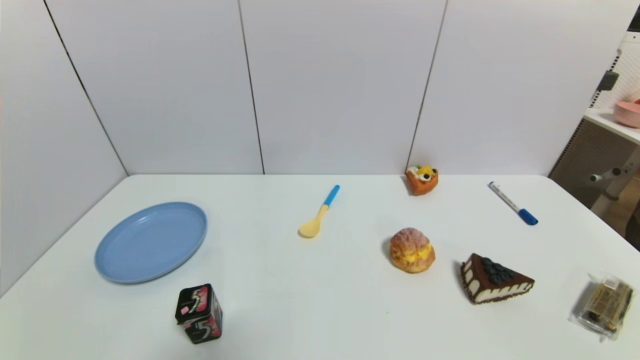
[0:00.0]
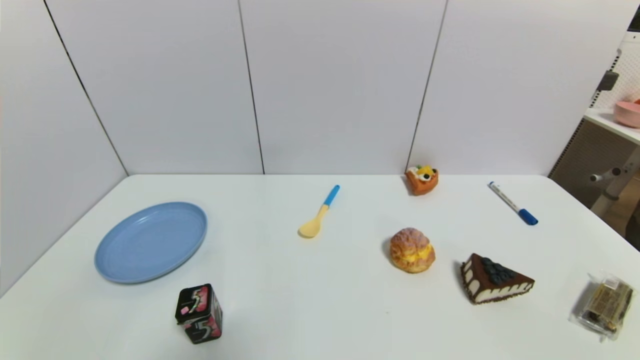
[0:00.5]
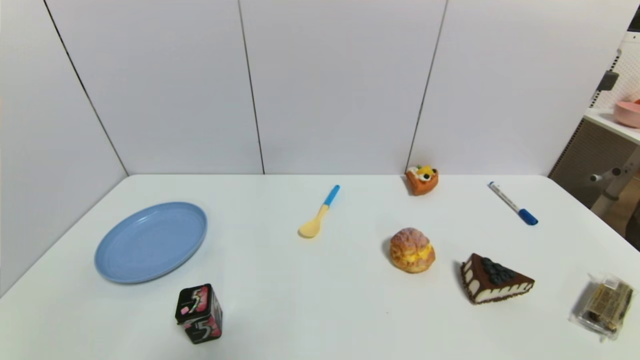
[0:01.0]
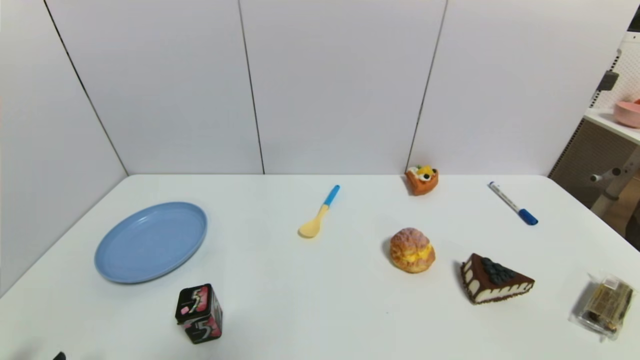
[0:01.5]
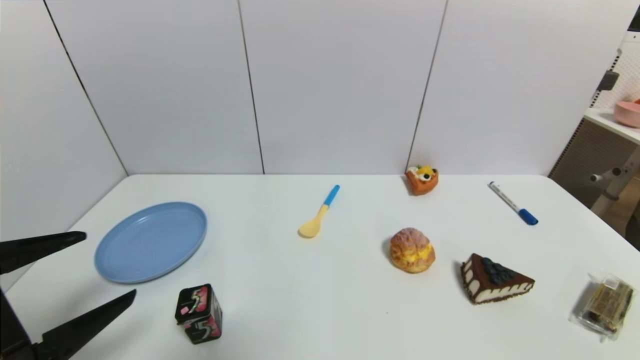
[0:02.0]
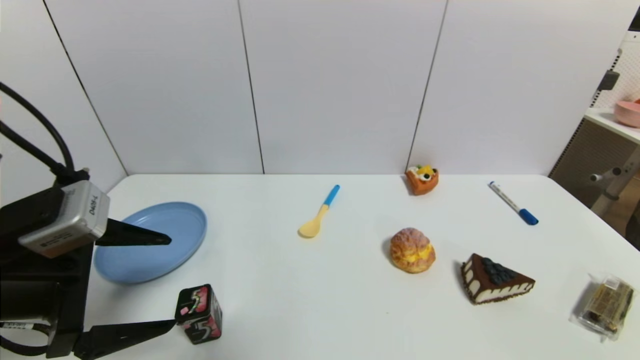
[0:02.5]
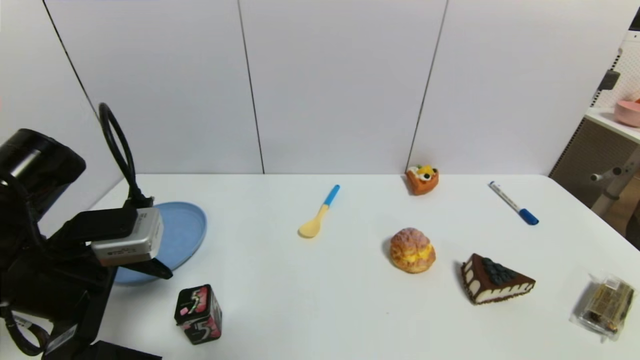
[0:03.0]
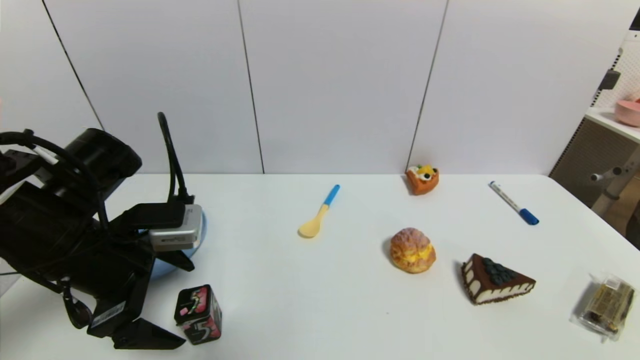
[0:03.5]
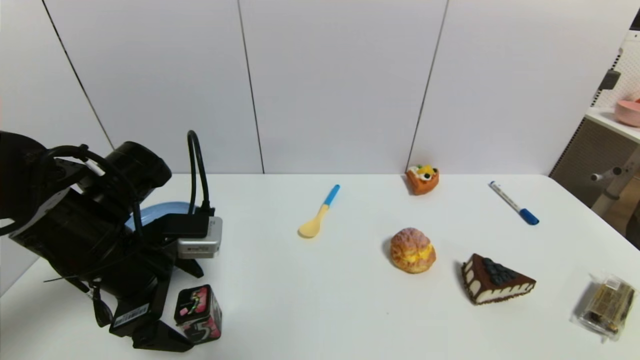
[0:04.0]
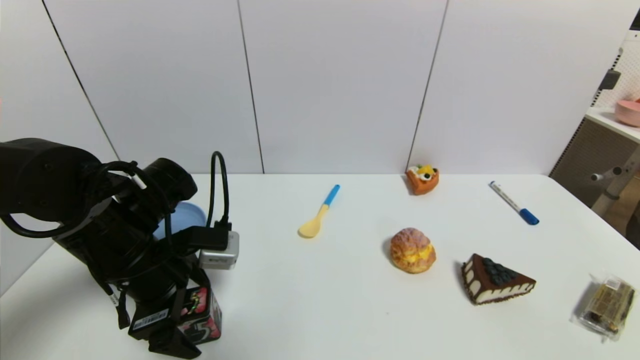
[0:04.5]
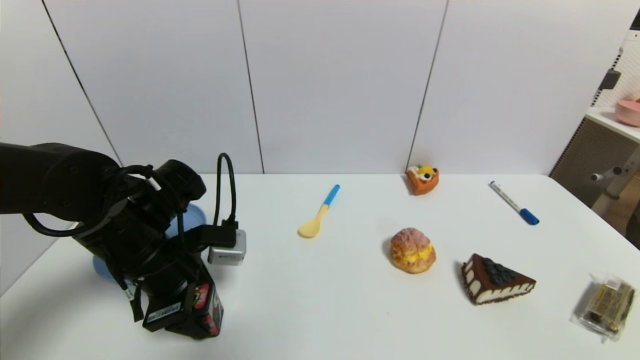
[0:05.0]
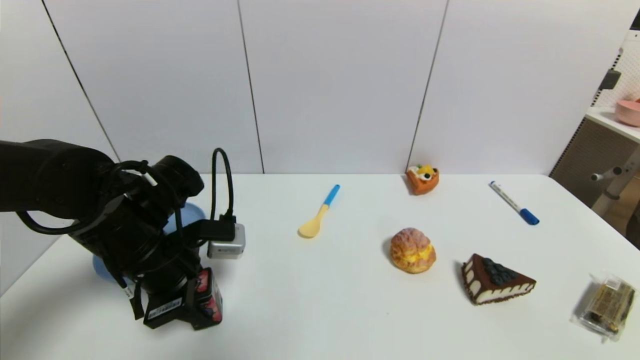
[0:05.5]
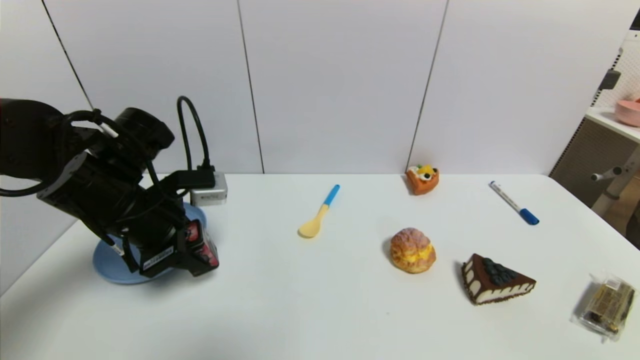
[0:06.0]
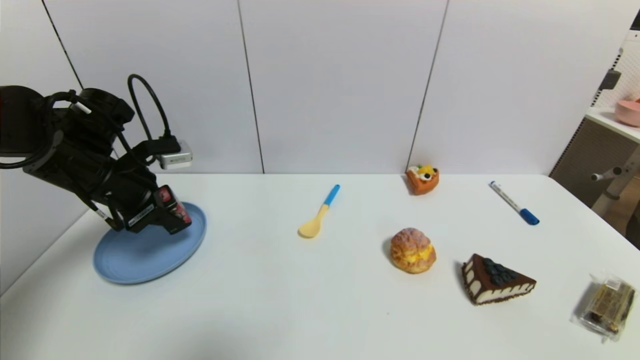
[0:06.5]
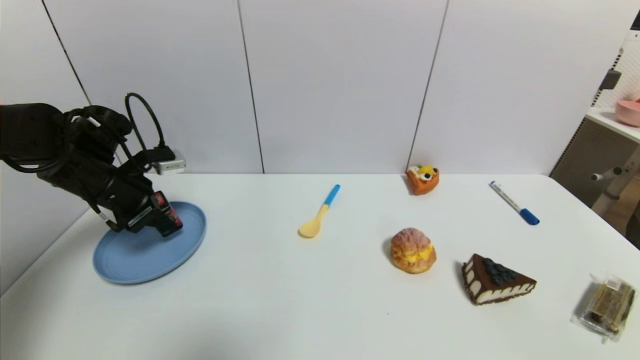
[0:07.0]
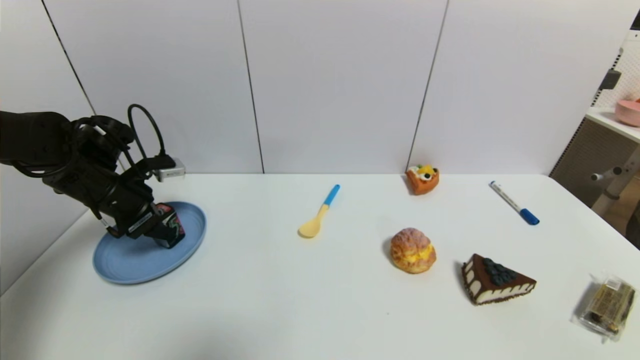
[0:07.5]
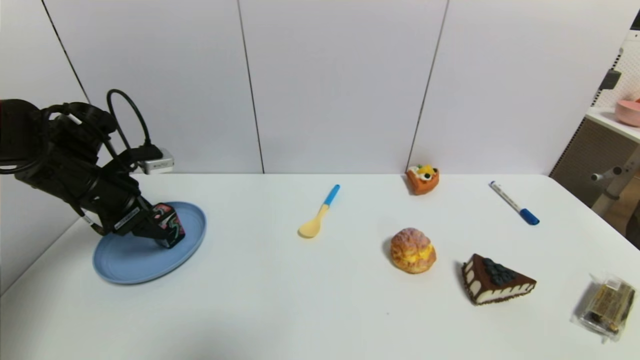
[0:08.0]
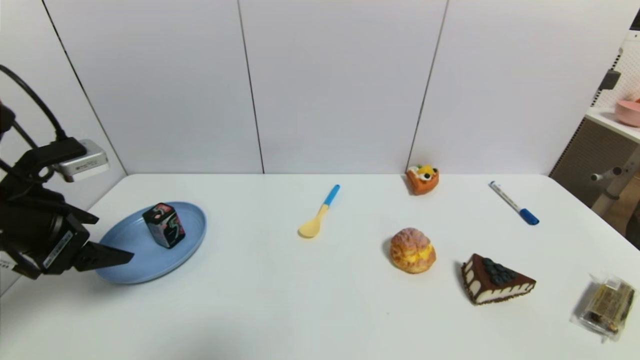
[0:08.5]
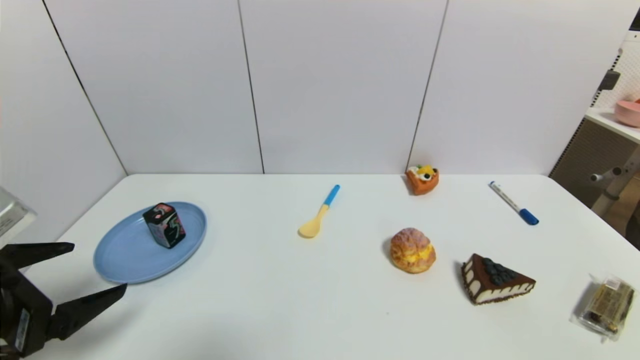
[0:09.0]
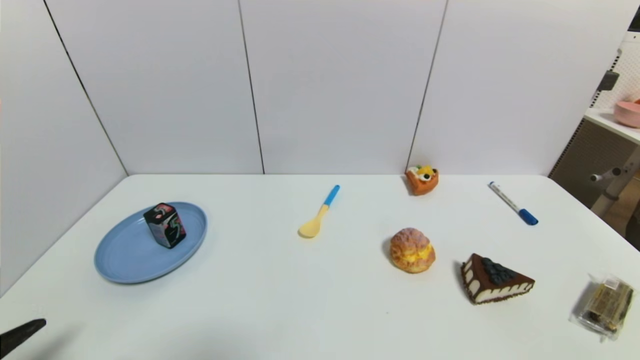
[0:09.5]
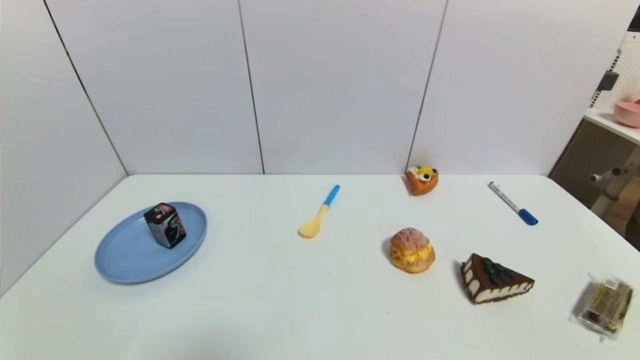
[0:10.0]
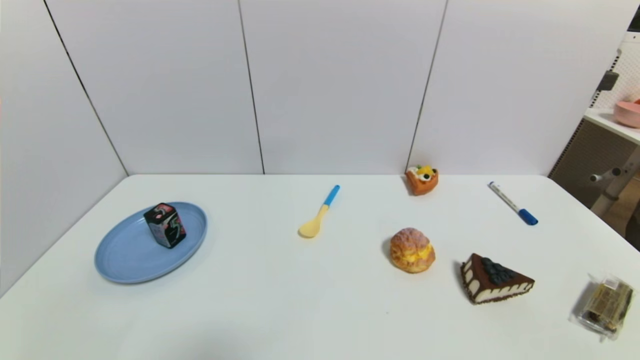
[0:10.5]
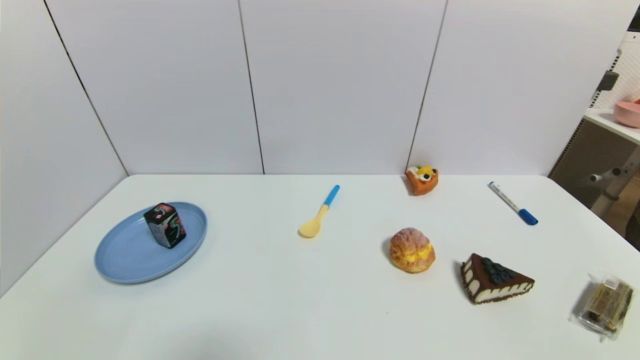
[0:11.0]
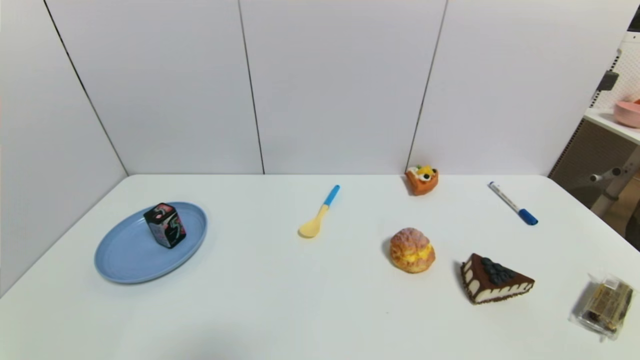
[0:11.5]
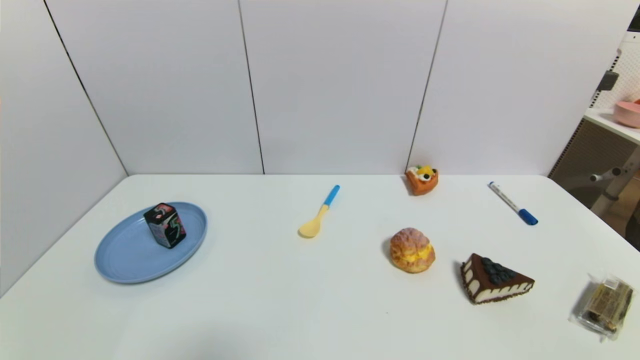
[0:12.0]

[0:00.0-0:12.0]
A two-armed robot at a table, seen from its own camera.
Task of the whole recording: use a gripper to pick the target object and place on the blue plate.
Step, 0:00.0 to 0:05.0: Grasp the square chewing gum with the left gripper.
Step, 0:05.5 to 0:08.0: Place the square chewing gum on the blue plate with the left gripper.
0:00.0 to 0:02.0: The left gripper shifts approximately 20 cm upward and forward.
0:02.0 to 0:04.0: The left gripper shifts about 15 cm forward and to the right.
0:04.0 to 0:06.0: The left gripper ends up about 5 cm from where it was, and closes up.
0:06.0 to 0:08.0: The left gripper heads to the left and forward, covering about 10 cm, and opens.
0:08.0 to 0:10.0: The left gripper heads backward, covering about 35 cm.
